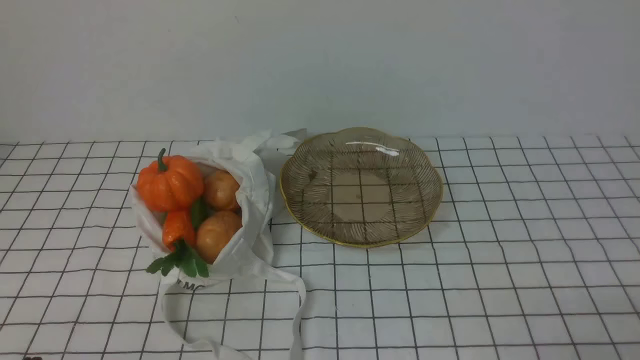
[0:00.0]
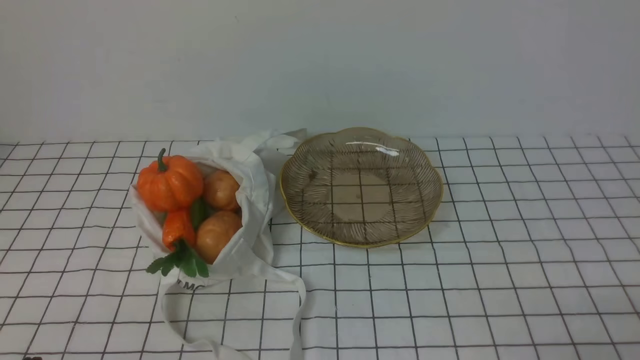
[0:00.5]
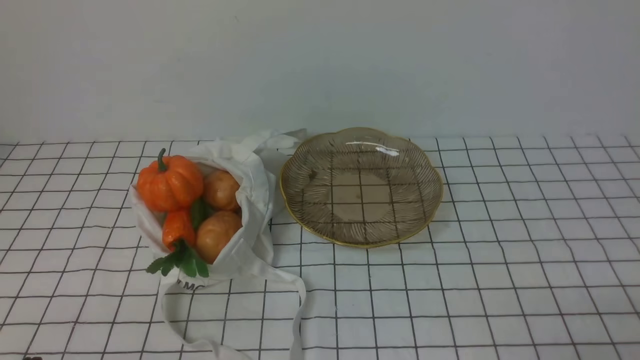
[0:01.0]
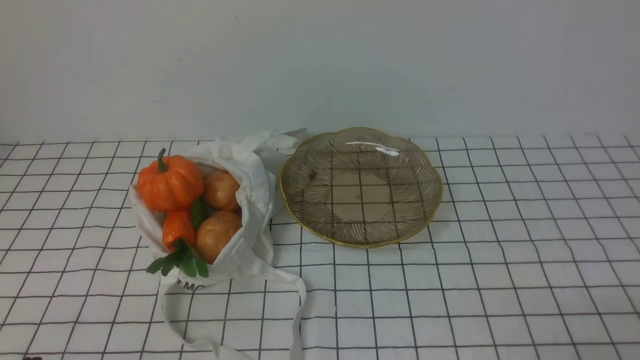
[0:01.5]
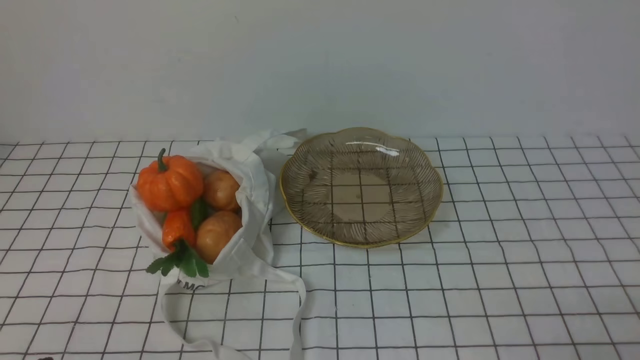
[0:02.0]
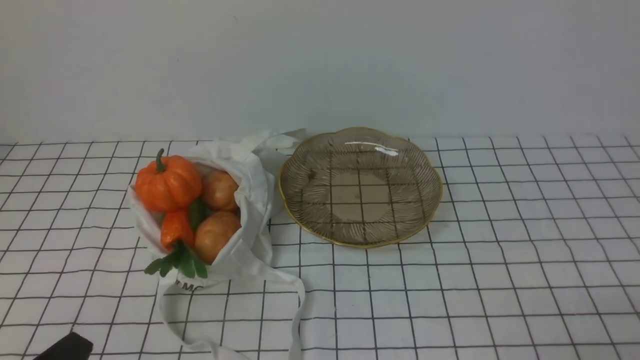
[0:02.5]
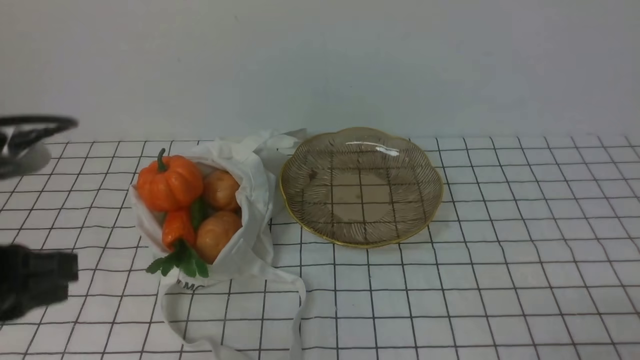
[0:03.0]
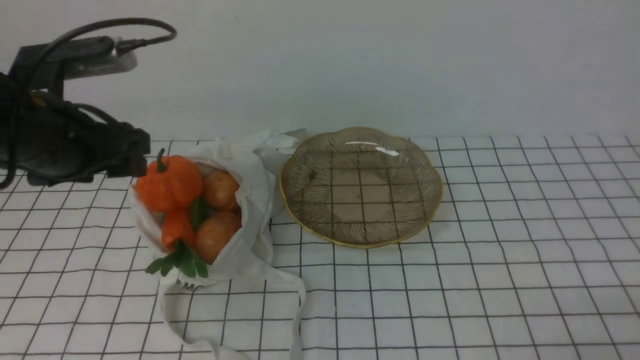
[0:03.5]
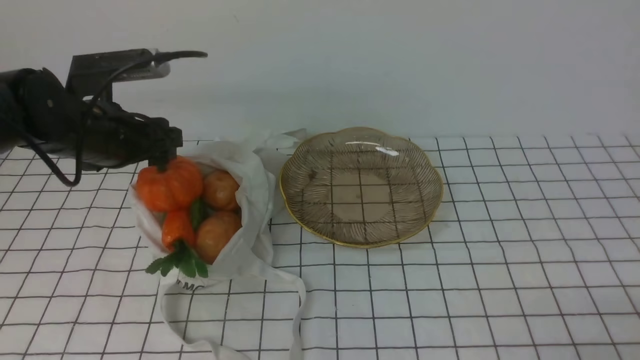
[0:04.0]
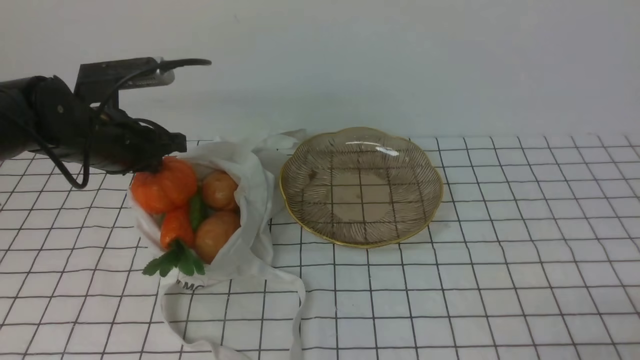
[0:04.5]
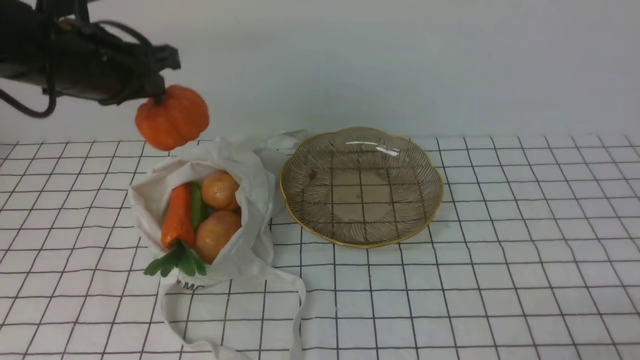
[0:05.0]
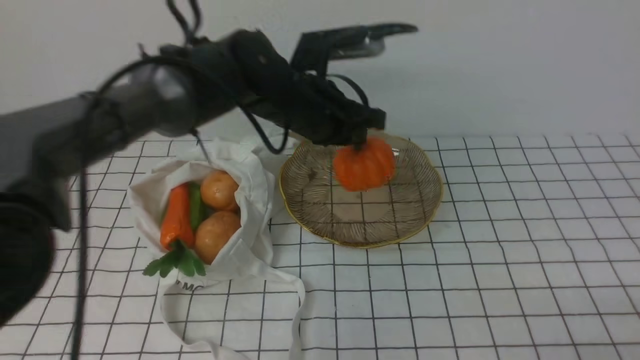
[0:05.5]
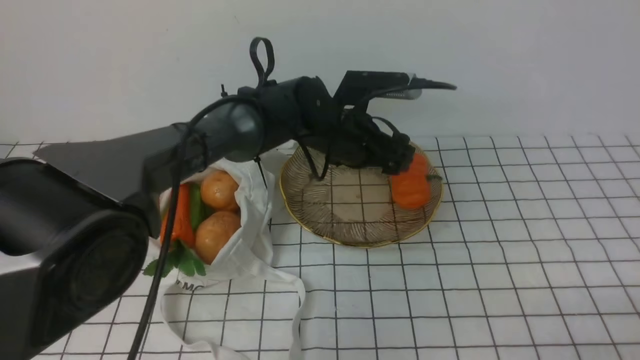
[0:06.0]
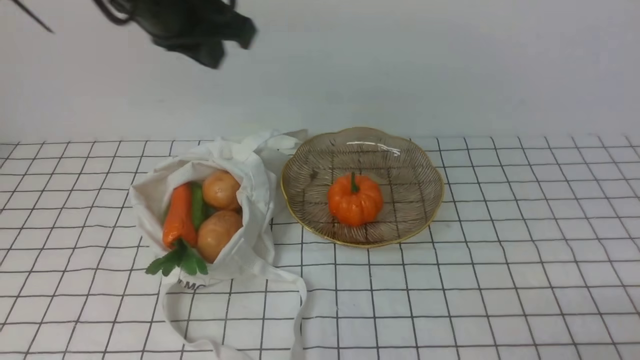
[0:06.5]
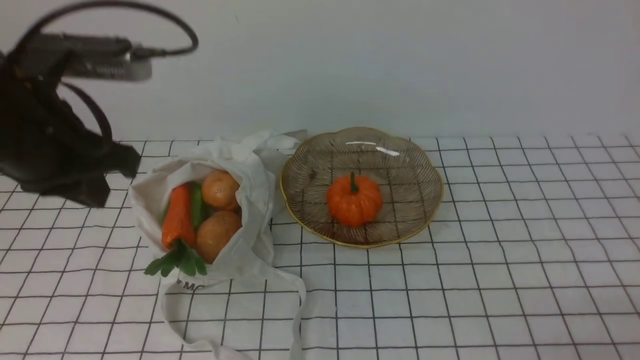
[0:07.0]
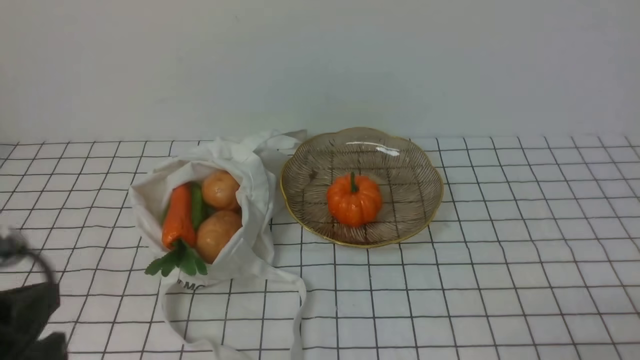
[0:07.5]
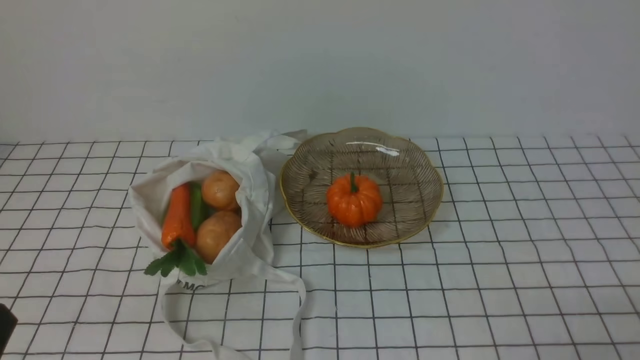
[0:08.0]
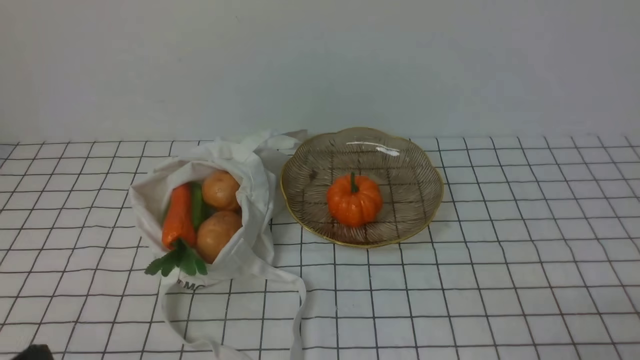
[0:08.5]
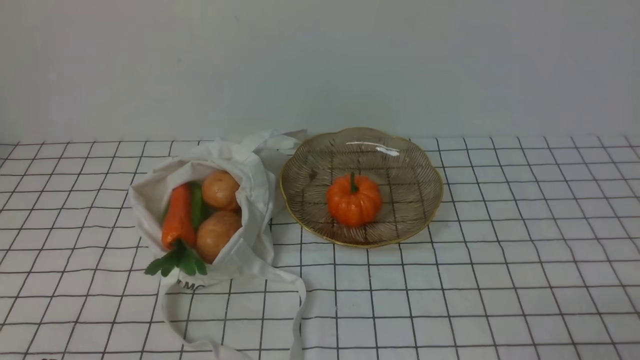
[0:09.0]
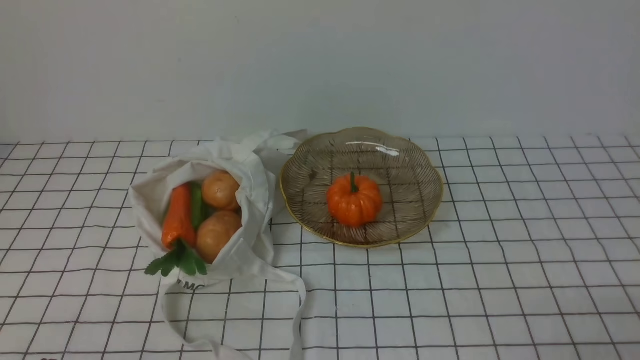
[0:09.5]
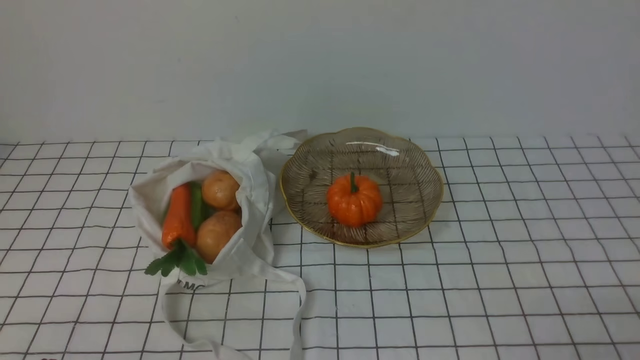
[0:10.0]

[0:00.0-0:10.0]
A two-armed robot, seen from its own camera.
Task of the whole recording: take vegetables from bag on white checkered tablecloth place on plate.
Step, 0:00.0 to 0:04.5: Grasp the pumpkin with left gripper.
Step, 0:05.0 to 0:06.0: Place the pumpkin on the plate with left gripper.
0:02.0 to 0:04.0: The left gripper moves forward, some 30 cm, and opens.
0:04.0 to 0:06.0: The left gripper heads to the right, covering roughly 25 cm, and closes and opens again.
0:06.0 to 0:08.0: The left gripper moves backward and to the left, some 50 cm, and closes its fingers.

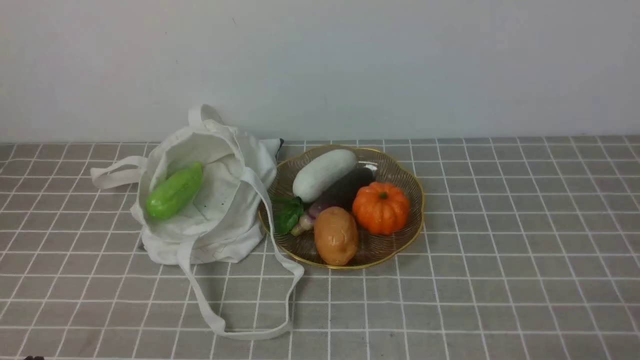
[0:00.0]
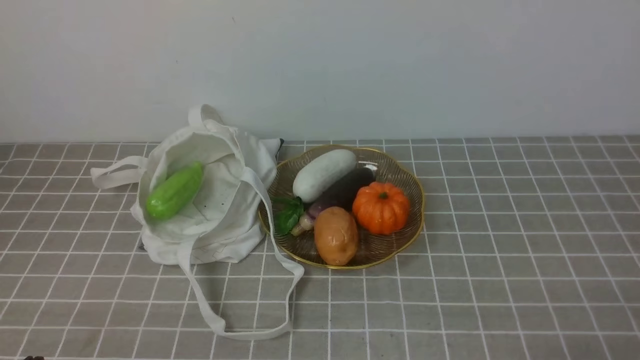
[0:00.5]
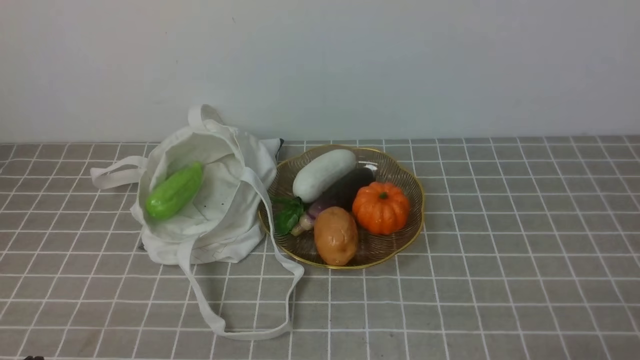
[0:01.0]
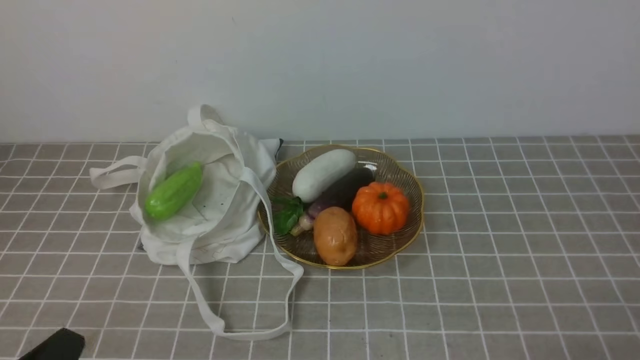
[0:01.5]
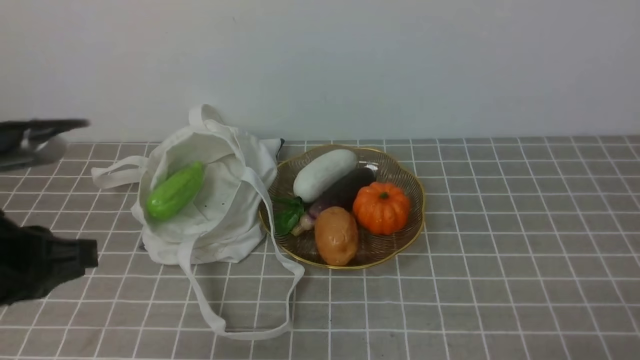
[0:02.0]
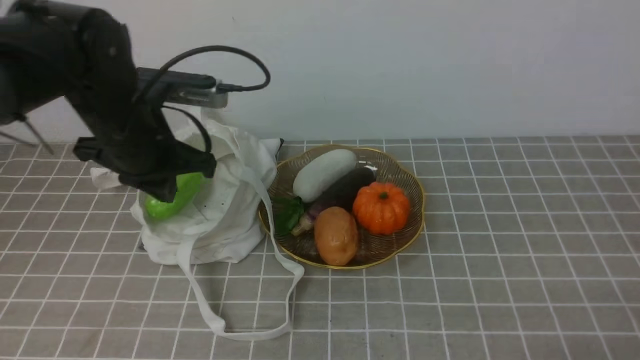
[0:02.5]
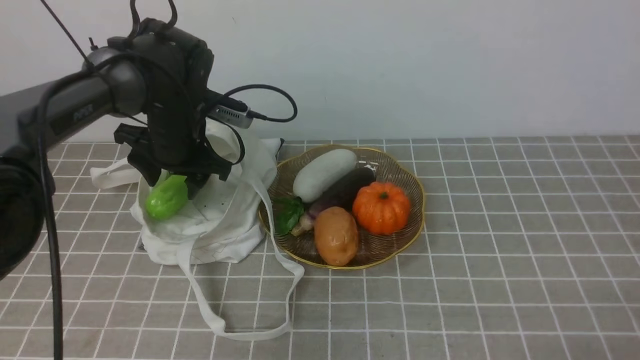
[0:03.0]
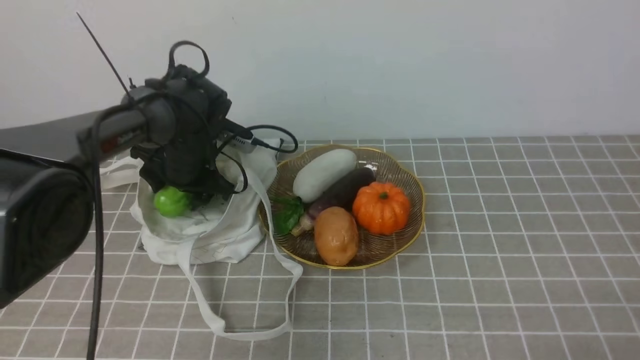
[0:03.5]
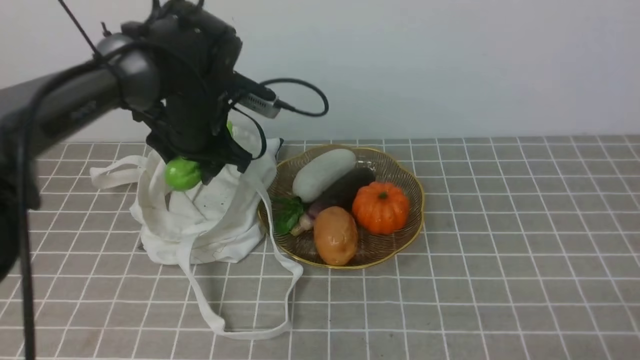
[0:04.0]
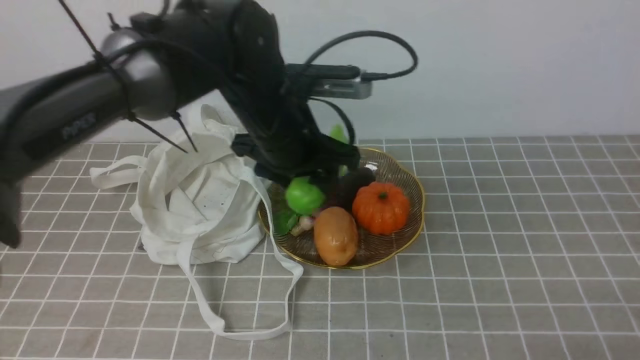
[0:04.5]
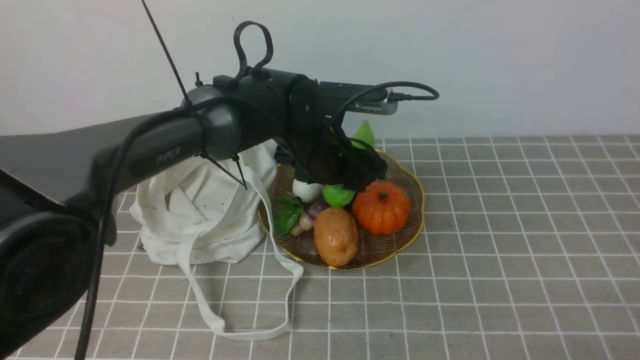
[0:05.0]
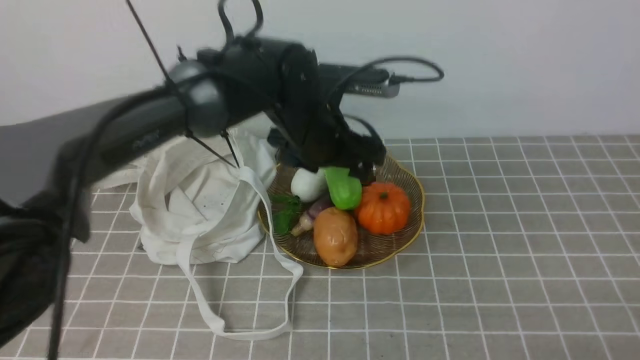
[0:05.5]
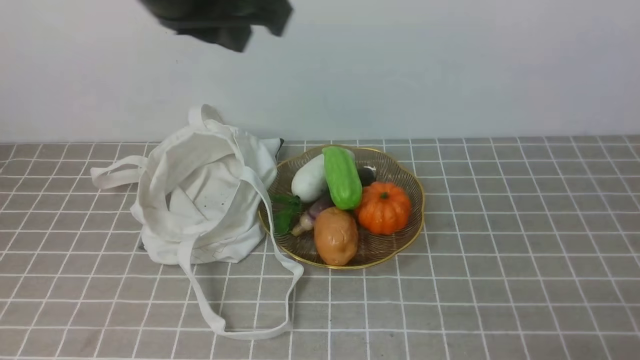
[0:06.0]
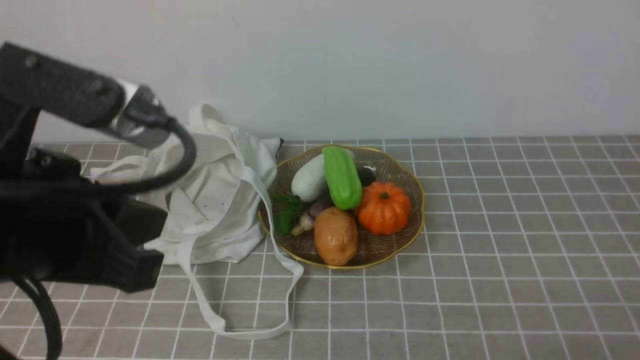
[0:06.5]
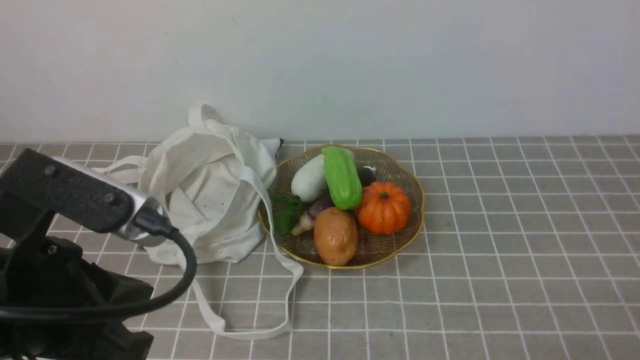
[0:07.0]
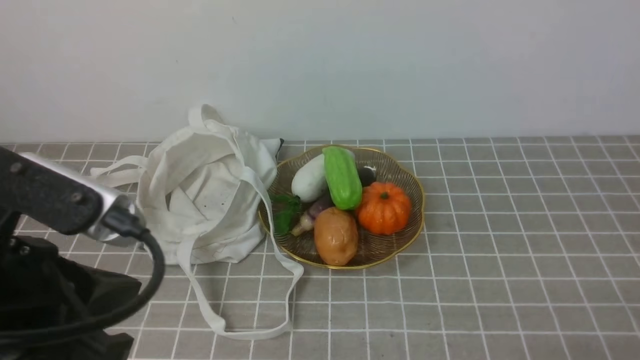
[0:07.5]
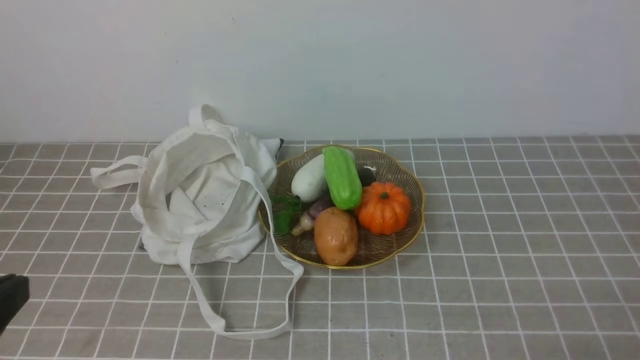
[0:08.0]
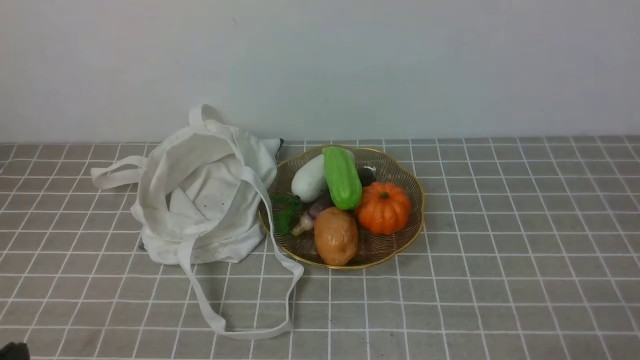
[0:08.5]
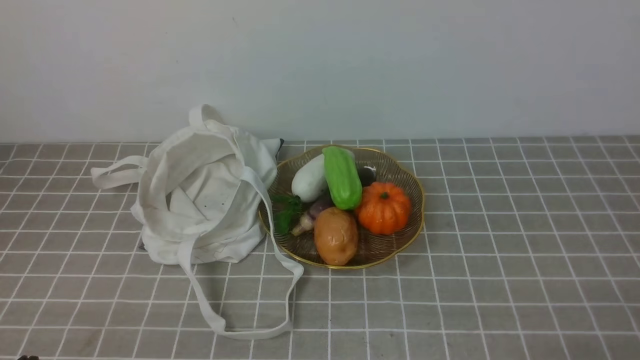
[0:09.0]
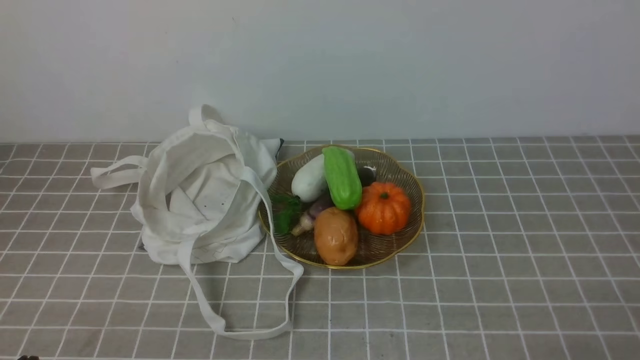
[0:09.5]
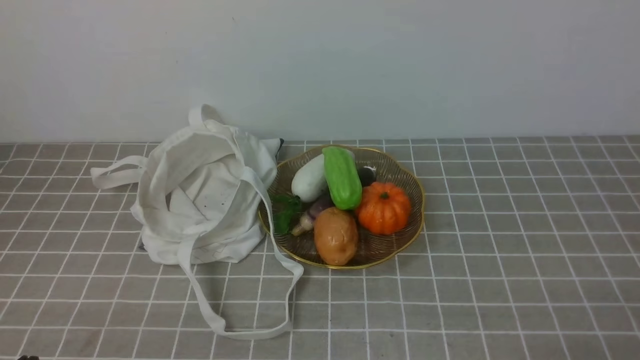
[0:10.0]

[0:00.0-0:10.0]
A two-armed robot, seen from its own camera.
Task of the whole recording: take vegetables from bag on grey coffee tablecloth place on plate.
Step, 0:00.0 to 0:03.5: Grasp the bitter melon with left gripper.
Step, 0:04.0 to 0:05.5: Place the bitter melon on the plate with left gripper.
0:02.0 to 0:04.0: The left gripper goes about 30 cm forward, and opens its fingers.
0:04.0 to 0:06.0: The left gripper swings up and down, approximately 20 cm each way, with 2 reversals, and closes up.
0:06.0 to 0:08.0: The left gripper moves backward, to the left and downward, about 30 cm.
0:08.0 to 0:10.0: The left gripper shifts roughly 15 cm downward.
